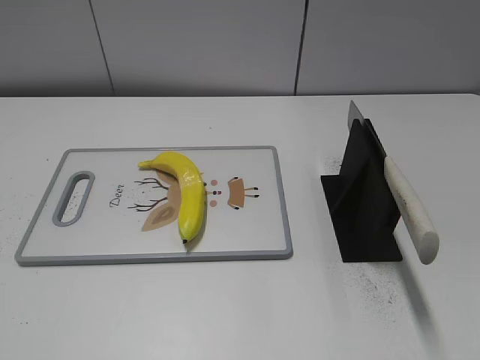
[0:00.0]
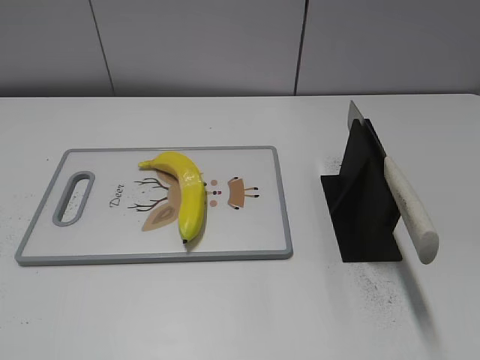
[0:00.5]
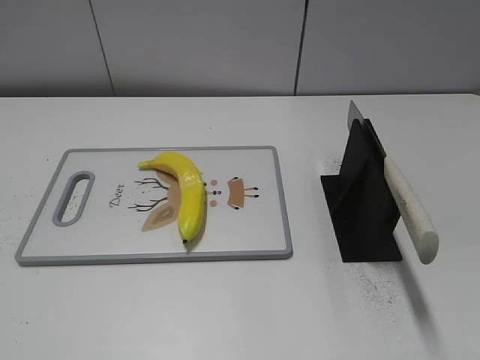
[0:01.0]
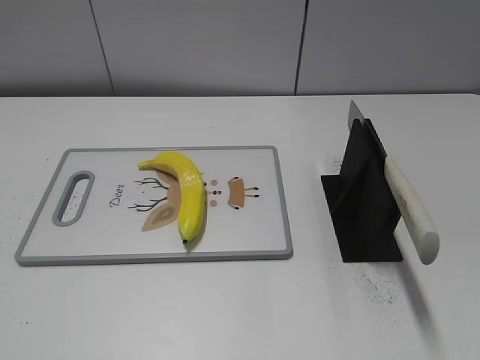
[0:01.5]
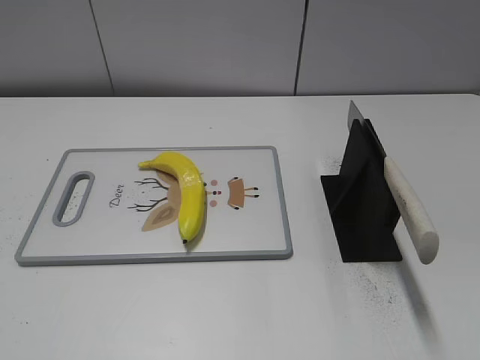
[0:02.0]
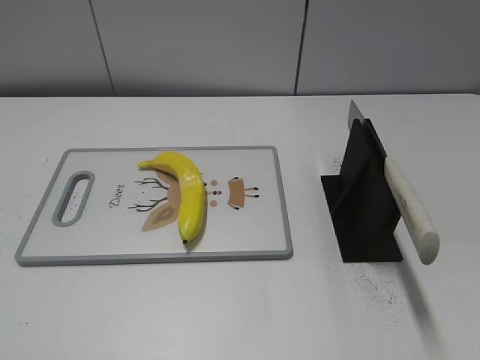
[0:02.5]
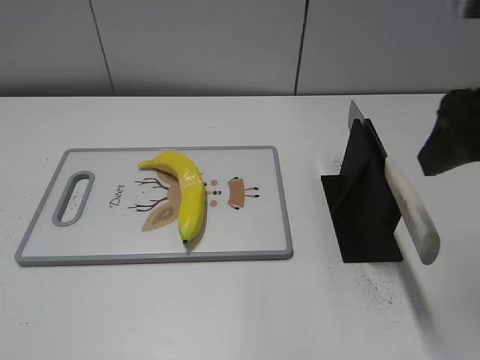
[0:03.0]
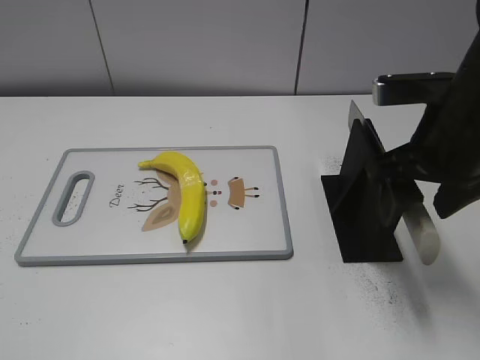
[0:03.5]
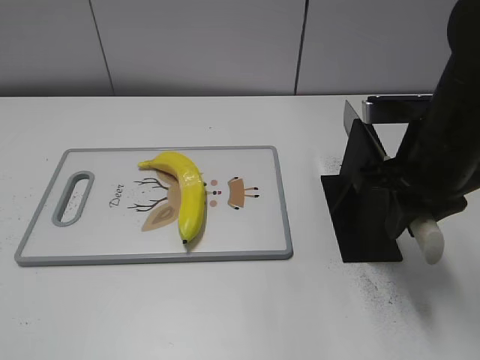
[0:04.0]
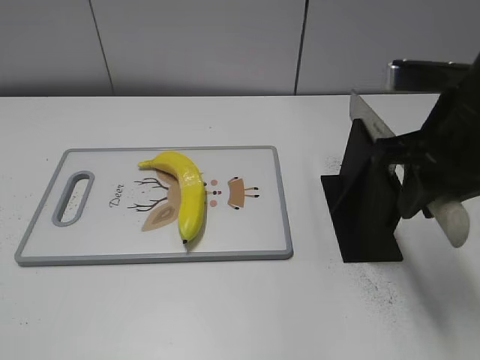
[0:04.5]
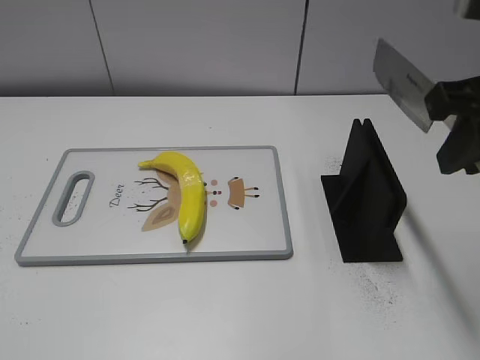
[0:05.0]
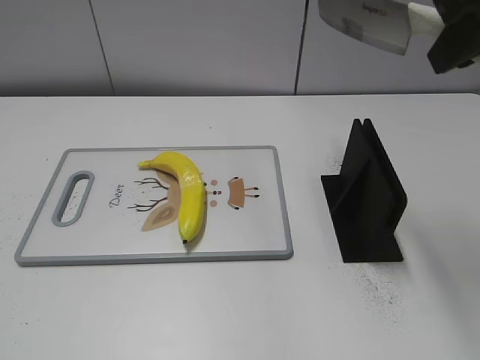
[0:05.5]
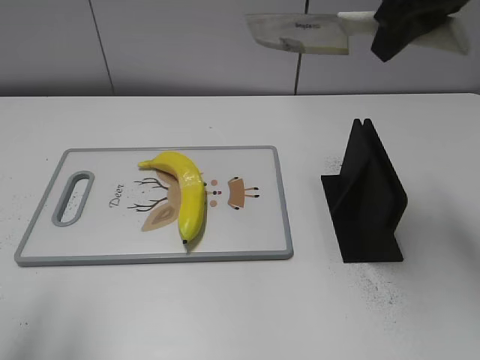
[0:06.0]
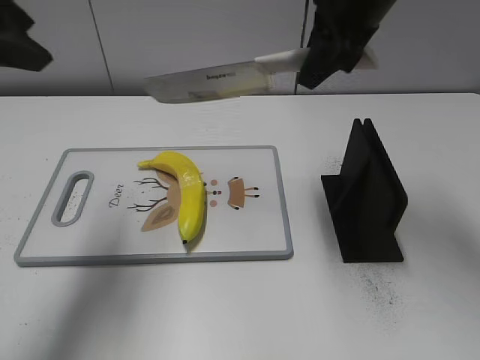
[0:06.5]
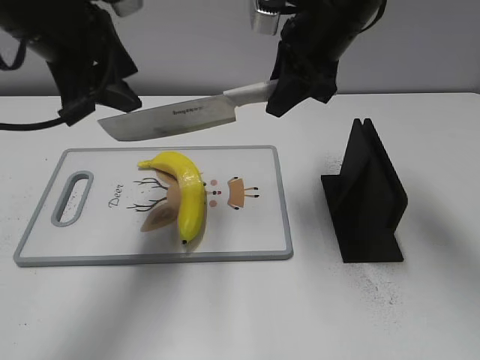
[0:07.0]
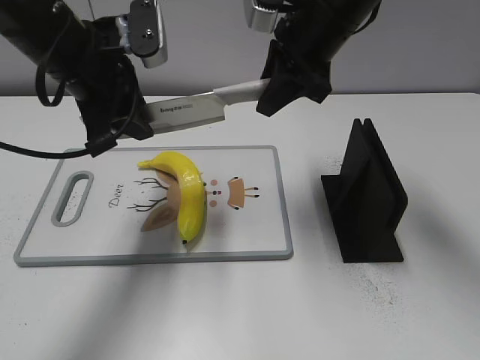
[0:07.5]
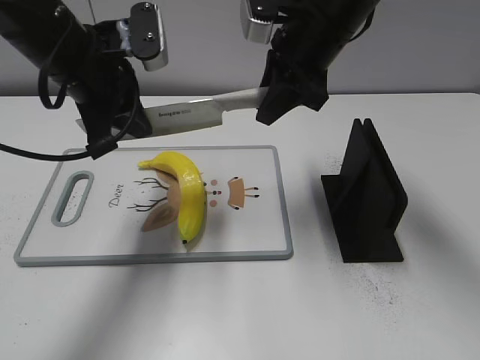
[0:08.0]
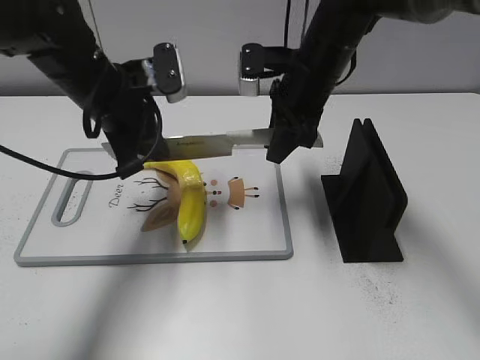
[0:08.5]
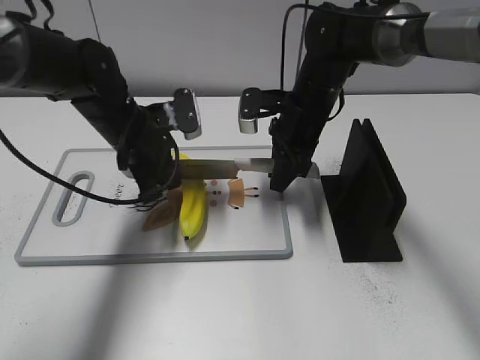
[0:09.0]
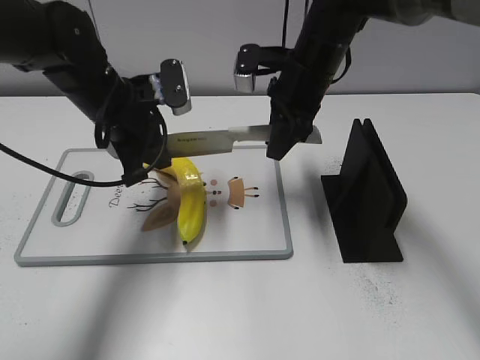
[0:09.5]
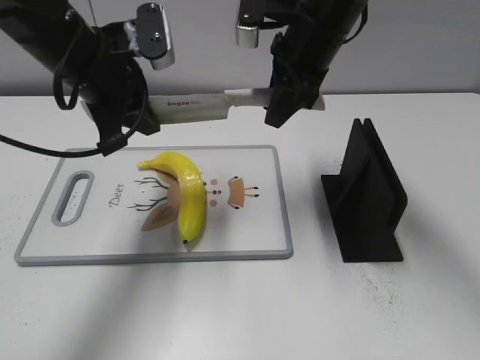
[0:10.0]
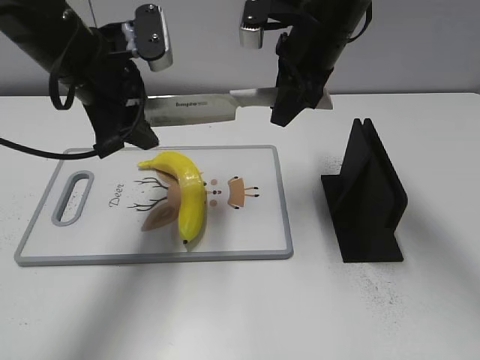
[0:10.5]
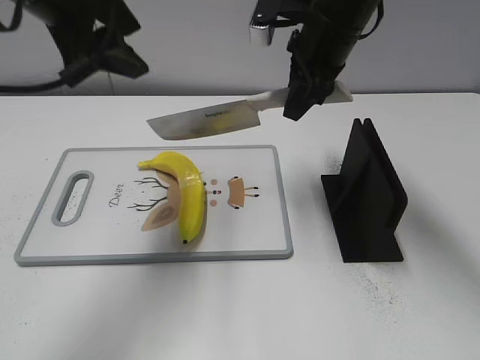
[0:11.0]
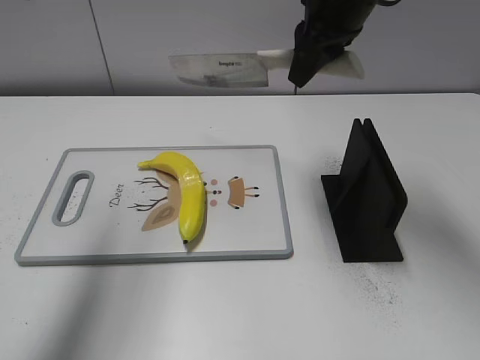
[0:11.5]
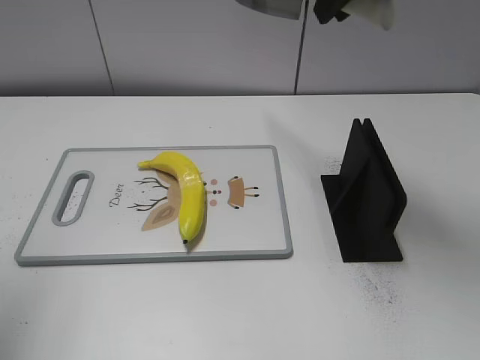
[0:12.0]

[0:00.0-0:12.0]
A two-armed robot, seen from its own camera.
Task of the whole recording: cut plastic banana.
Step, 0:00.0 to 0:04.5: Grab the knife handle with your right hand.
Step, 0:05.5 to 0:09.0: Lift the knife with your right hand.
Step, 0:09.5 to 0:11.0: Cut the banana with your right hand.
0:02.0 to 0:04.0: The right gripper travels forward, to the left and downward by approximately 30 cm, and closes.
0:04.0 to 0:06.0: The left gripper heads forward and upward, covering some 15 cm. Meanwhile the right gripper is displaced upward by roughly 15 cm.
0:06.0 to 0:08.0: The left gripper travels forward, to the right and downward by approximately 25 cm, and closes its fingers. The right gripper is displaced downward, to the left and forward by approximately 15 cm.
0:08.0 to 0:10.0: The left gripper moves about 15 cm downward and comes back. Meanwhile the right gripper reaches about 15 cm downward, then returns.
0:10.0 to 0:12.0: The right gripper heads upward, covering roughly 15 cm. The left gripper shifts about 30 cm upward, to the left and backward, and opens its fingers.

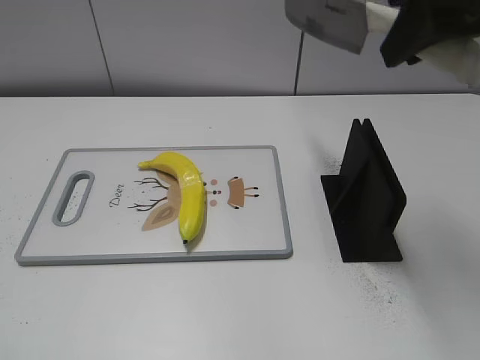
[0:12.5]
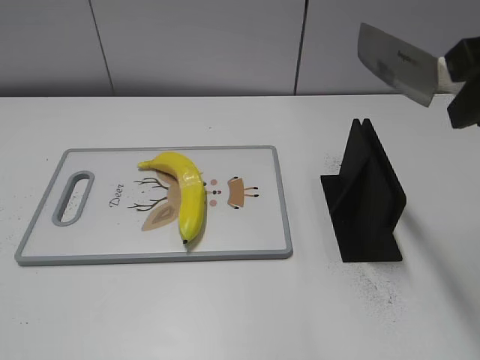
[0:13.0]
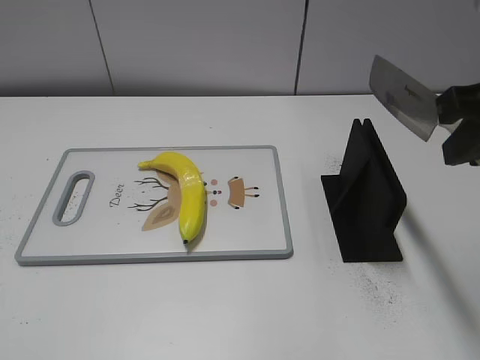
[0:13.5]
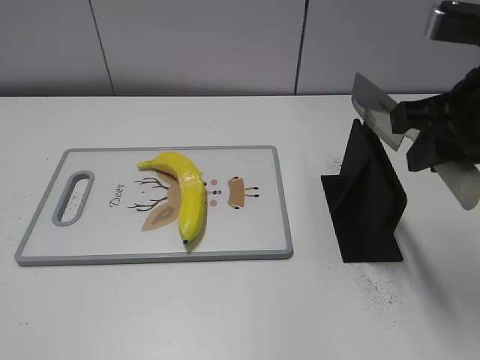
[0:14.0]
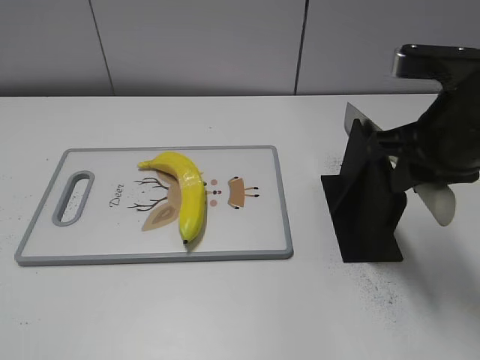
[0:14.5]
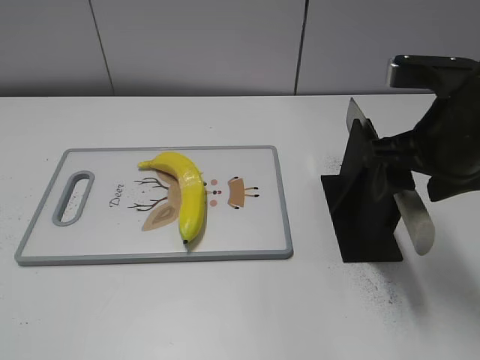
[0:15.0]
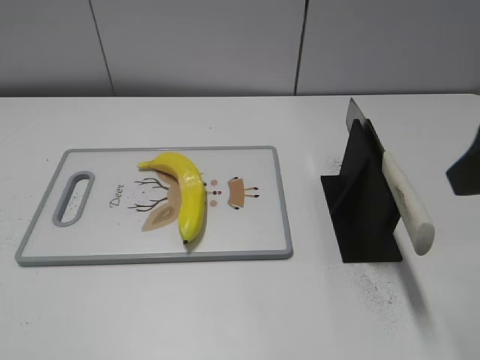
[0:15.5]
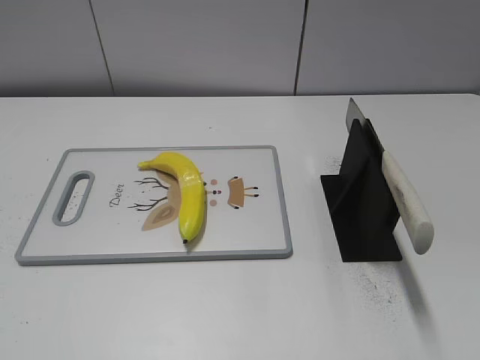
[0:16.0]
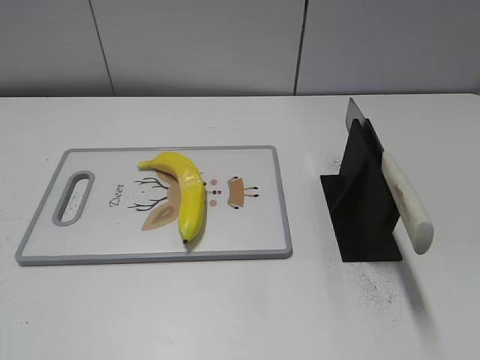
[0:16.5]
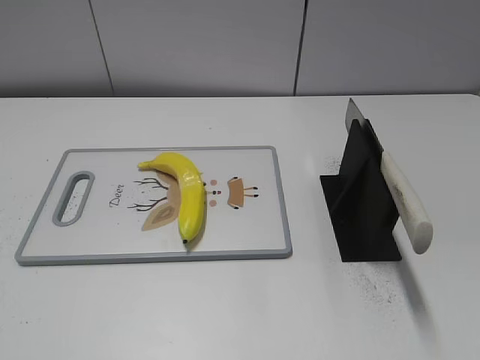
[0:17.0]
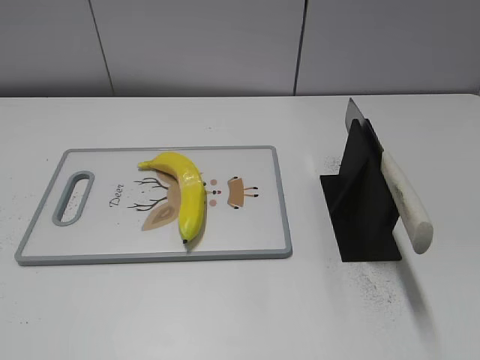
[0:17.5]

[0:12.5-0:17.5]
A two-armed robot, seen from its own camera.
Task of the whole recording: cut plastic banana.
Step, 0:13.0 to 0:17.5: Place the knife on the storage rack with your right hand.
0:12.5 to 0:15.0: The right gripper heads downward, covering about 15 cm, and opens its fingers.
0:15.0 to 0:17.5: The right gripper shifts approximately 30 cm backward and to the right.

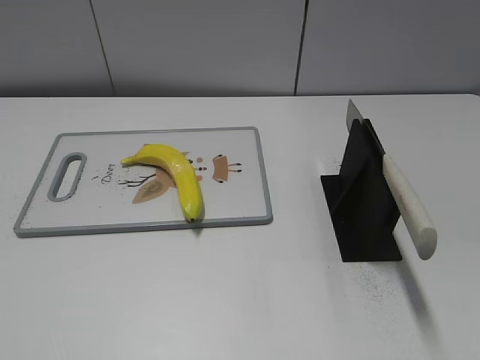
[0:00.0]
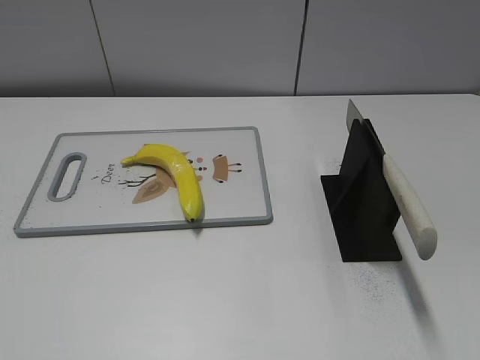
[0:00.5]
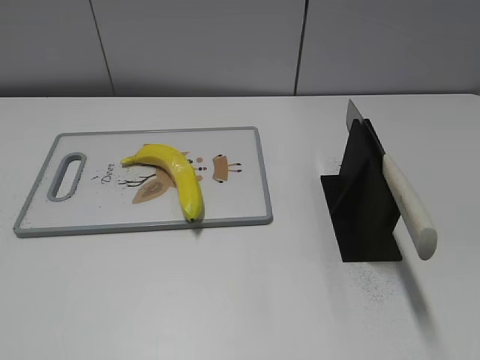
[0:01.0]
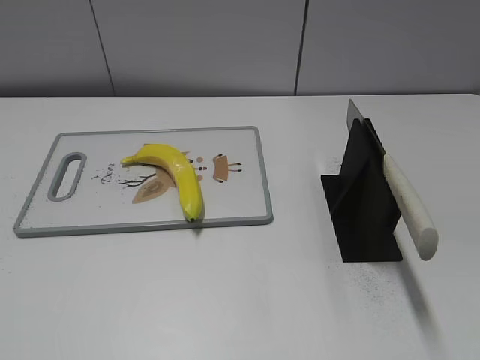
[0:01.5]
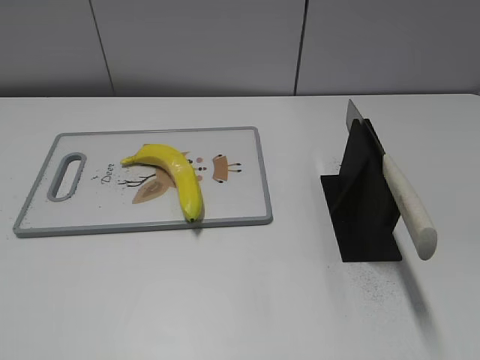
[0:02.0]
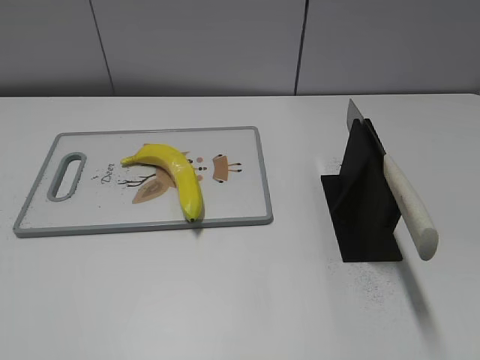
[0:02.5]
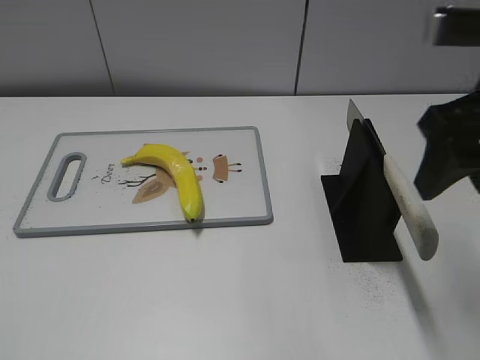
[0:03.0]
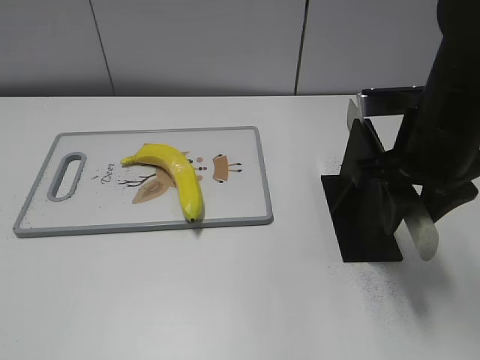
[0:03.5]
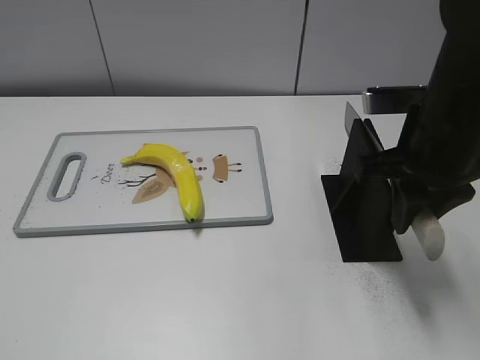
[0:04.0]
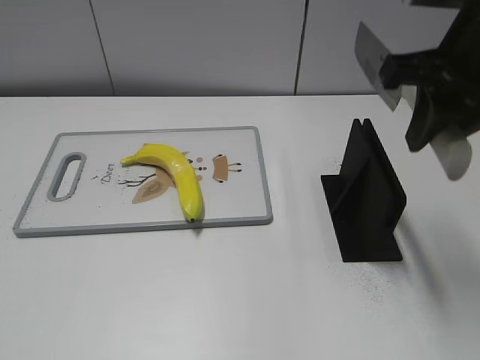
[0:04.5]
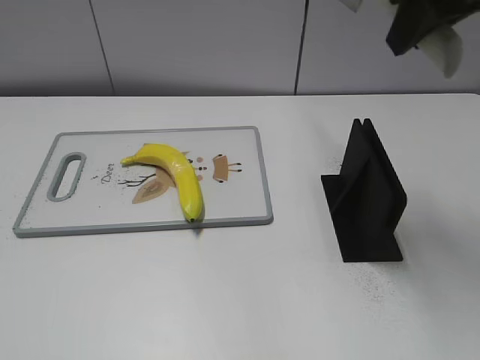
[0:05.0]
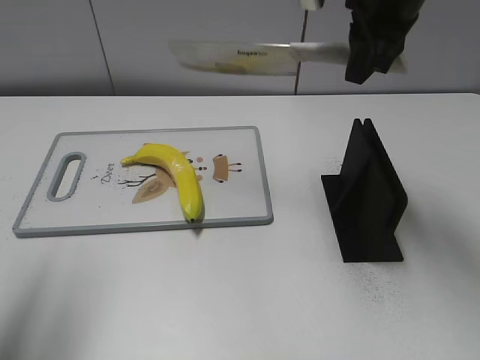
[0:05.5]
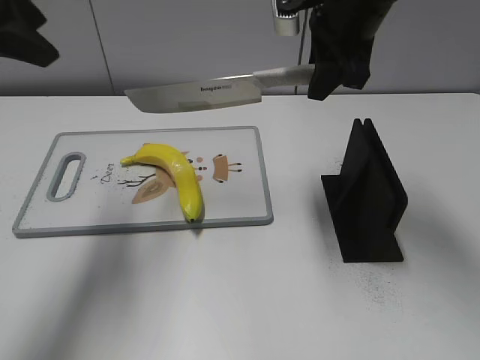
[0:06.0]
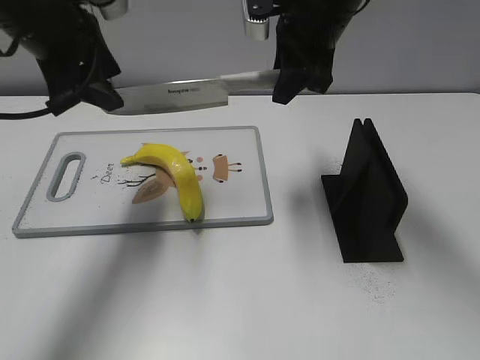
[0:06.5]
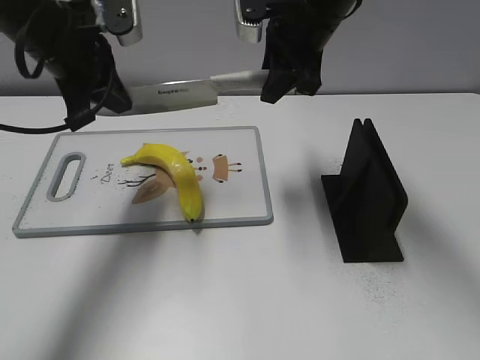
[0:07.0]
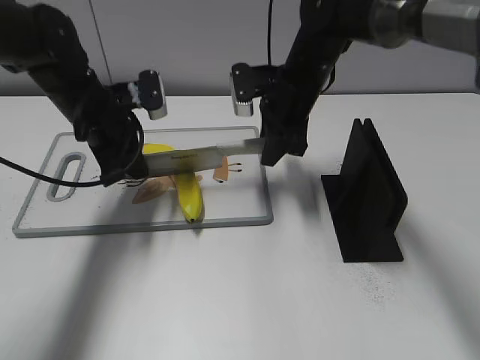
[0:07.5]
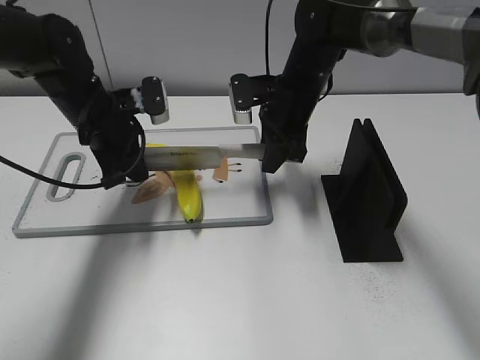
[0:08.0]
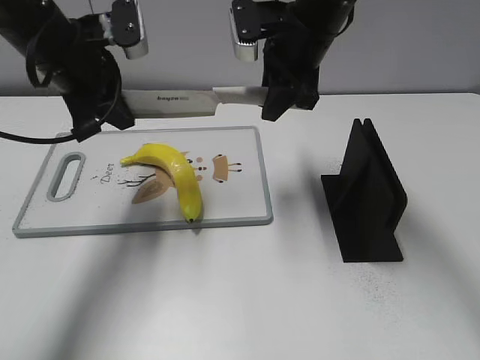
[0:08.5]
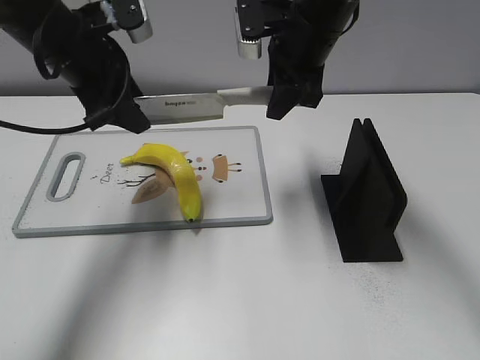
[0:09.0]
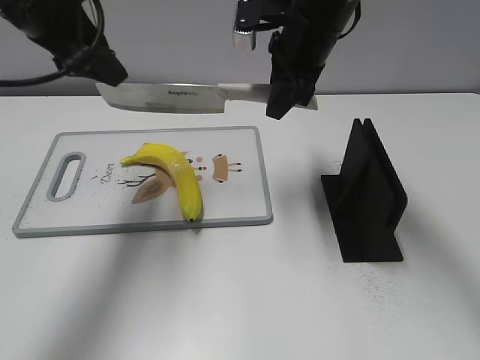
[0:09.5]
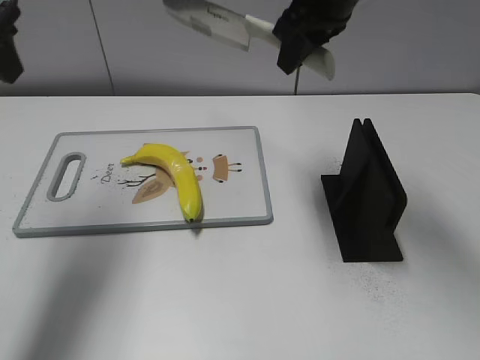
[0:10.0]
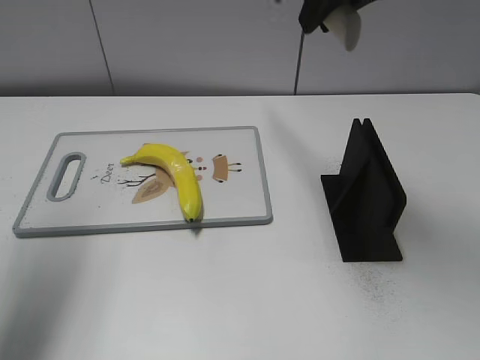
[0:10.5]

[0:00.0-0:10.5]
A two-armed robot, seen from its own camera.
Task of the whole recording: cut plastic banana.
Step, 0:00.0 to 0:04.5: Grab the knife handle with your right hand.
Step, 0:05.5 to 0:08.0: Lift the knife with your right hand.
0:02.0 to 0:04.0: The right gripper travels forward and to the left by roughly 30 cm, and closes up.
0:04.0 to 0:06.5: The right gripper goes about 15 cm forward and to the left; the left gripper travels forward by some 35 cm.
0:06.5 to 0:08.5: The right gripper travels downward and back again, about 10 cm each way. Meanwhile the left gripper goes downward and returns, roughly 15 cm each way, and closes its fingers.
0:08.5 to 0:10.5: The right gripper heads upward and backward, covering roughly 15 cm, while the left gripper shifts some 20 cm to the left, backward and upward, and opens up.
